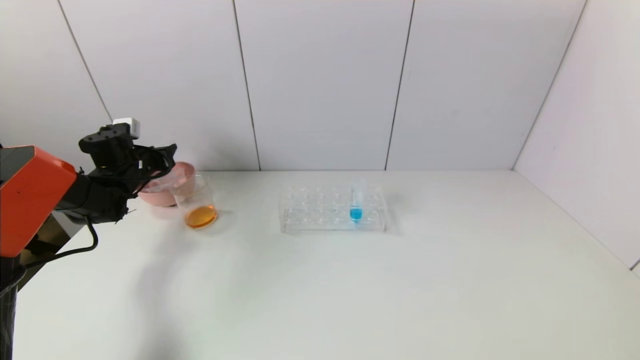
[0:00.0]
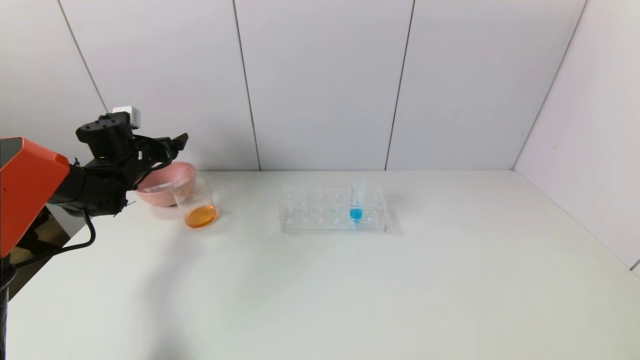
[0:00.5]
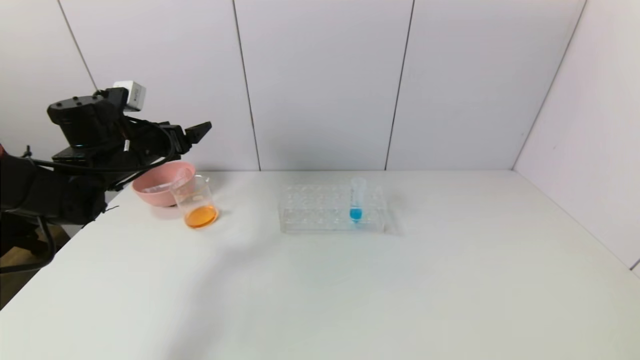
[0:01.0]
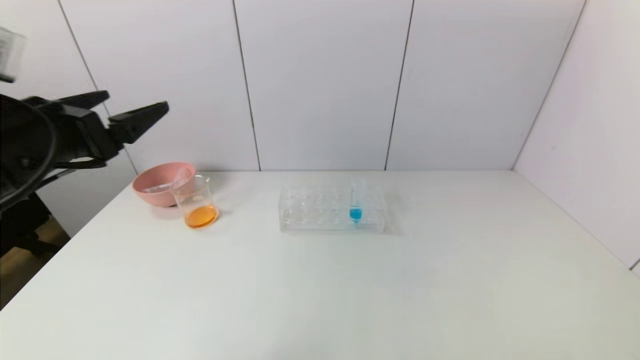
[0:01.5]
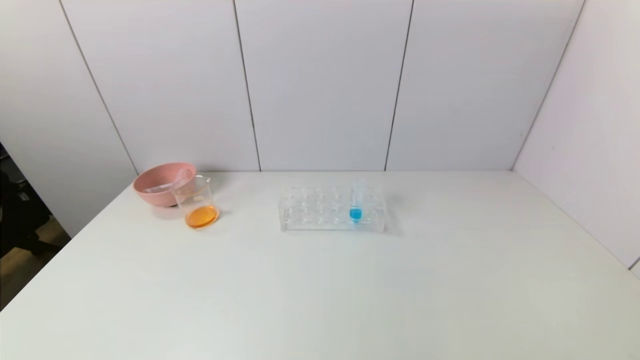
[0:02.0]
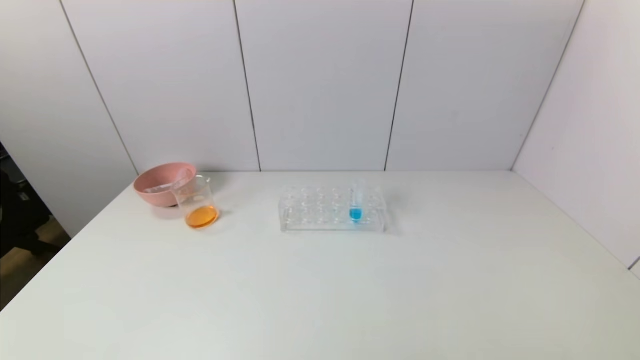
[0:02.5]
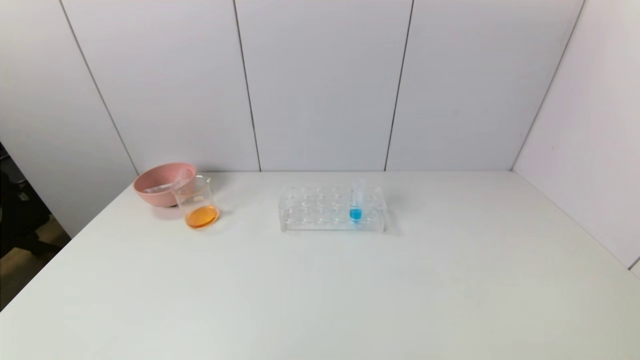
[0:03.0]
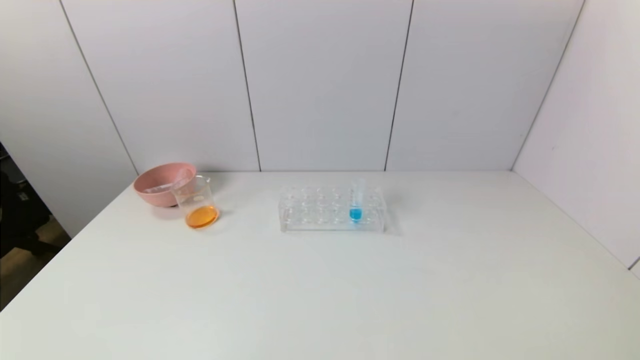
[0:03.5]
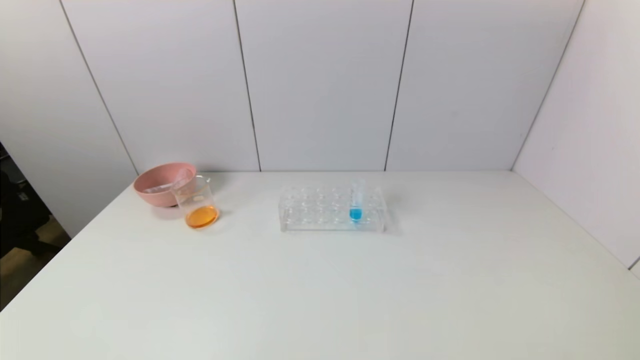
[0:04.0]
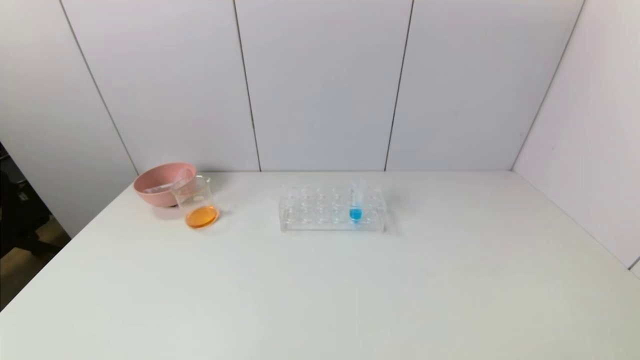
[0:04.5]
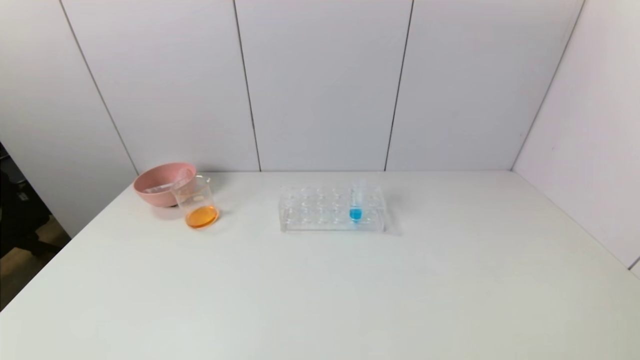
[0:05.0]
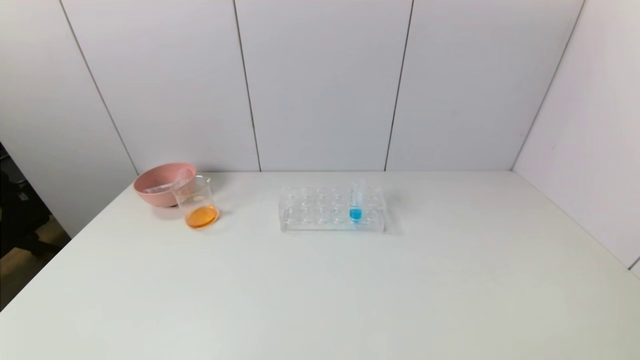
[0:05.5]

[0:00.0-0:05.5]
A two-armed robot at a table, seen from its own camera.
Task of the whole recording: pick up the test tube with yellow pigment and the test tube with red pigment by grippers and pour them into the beaker.
0:00.0 to 0:02.0: The left gripper moves backward, roughly 50 cm, and opens its fingers.
0:03.5 to 0:05.5: Neither gripper changes place.

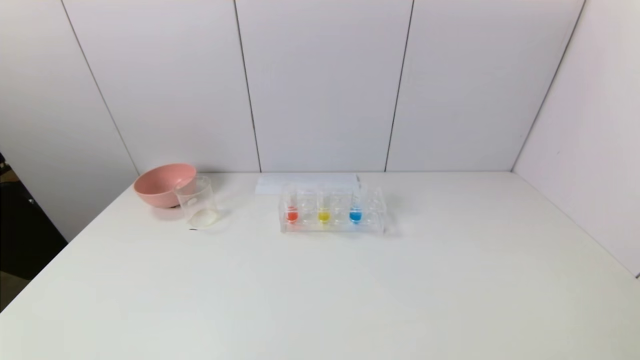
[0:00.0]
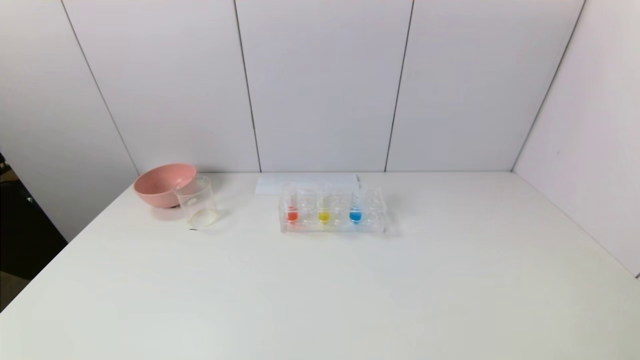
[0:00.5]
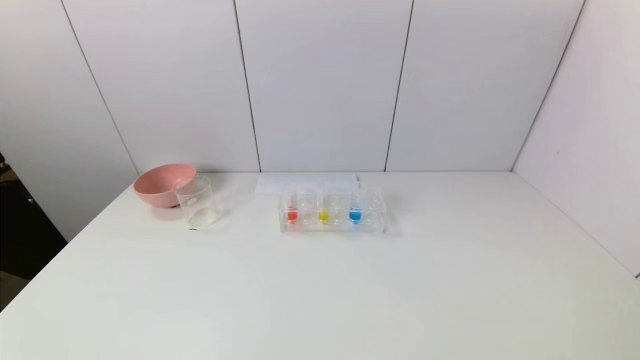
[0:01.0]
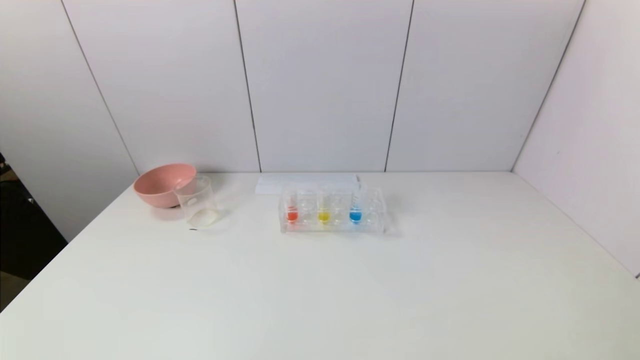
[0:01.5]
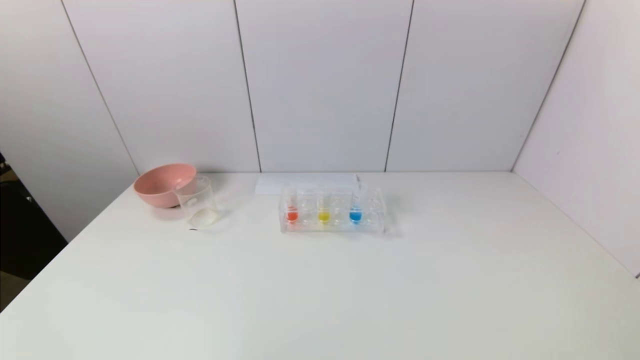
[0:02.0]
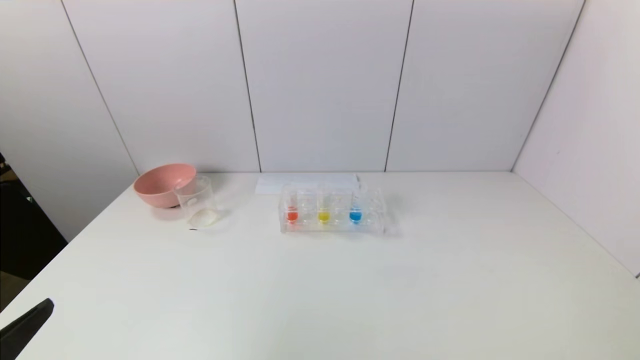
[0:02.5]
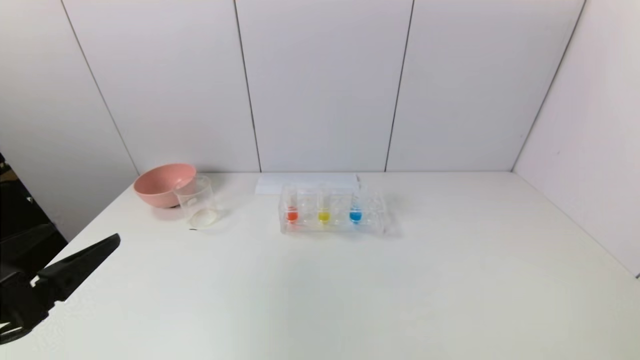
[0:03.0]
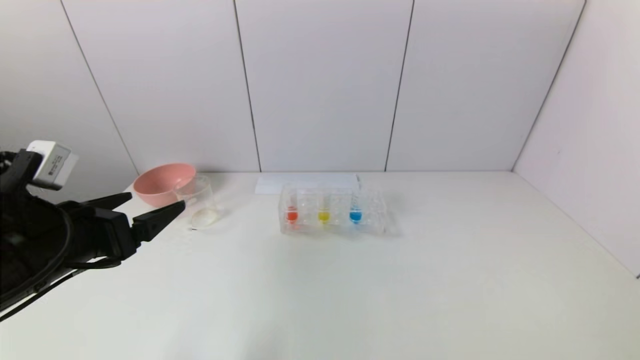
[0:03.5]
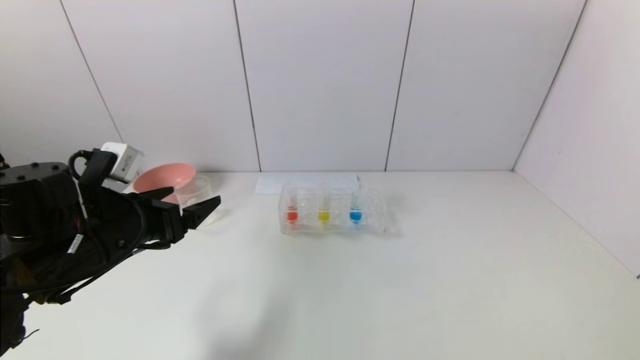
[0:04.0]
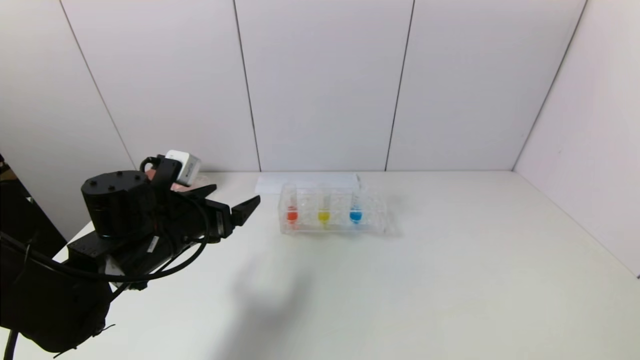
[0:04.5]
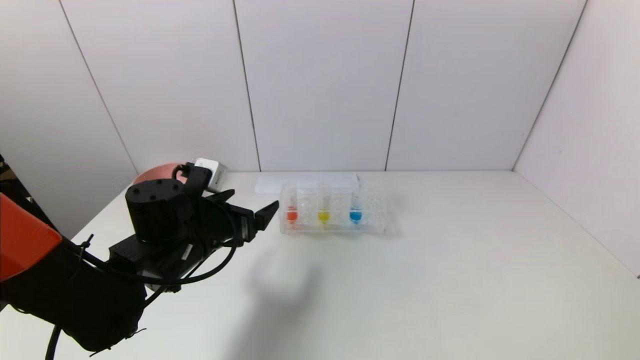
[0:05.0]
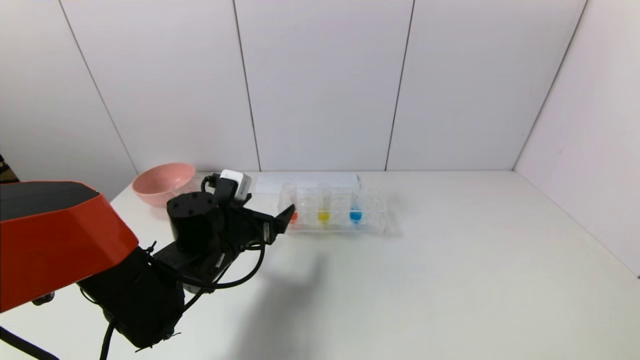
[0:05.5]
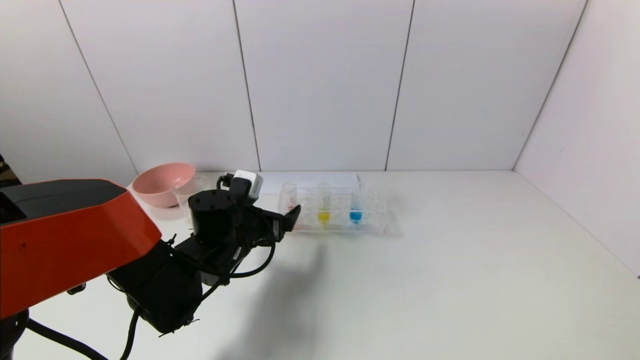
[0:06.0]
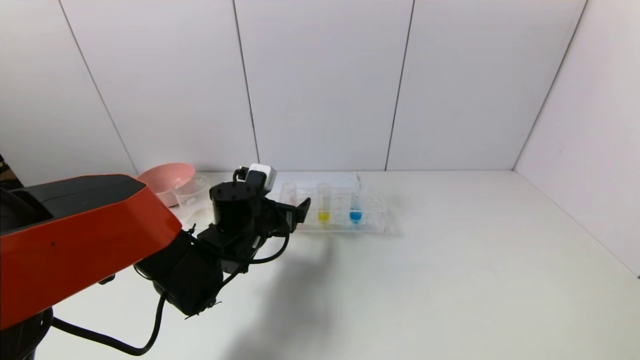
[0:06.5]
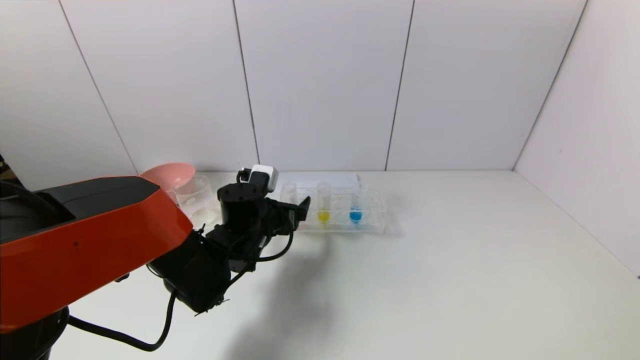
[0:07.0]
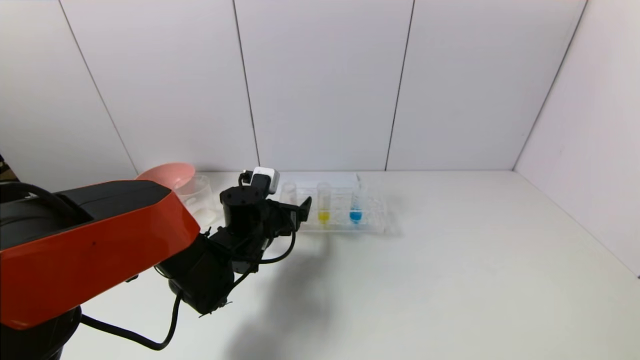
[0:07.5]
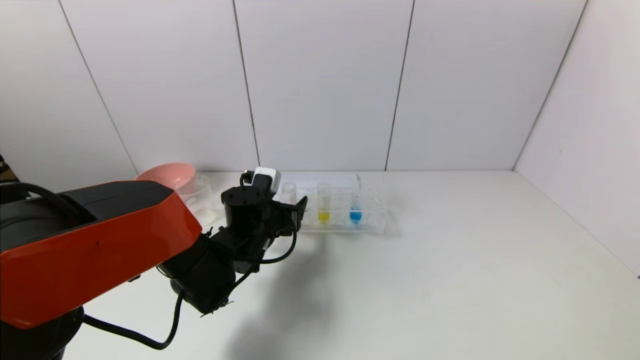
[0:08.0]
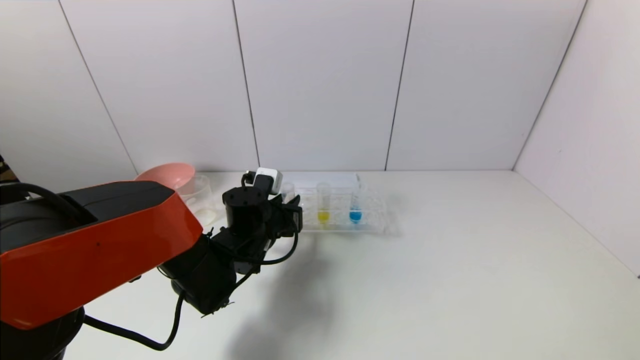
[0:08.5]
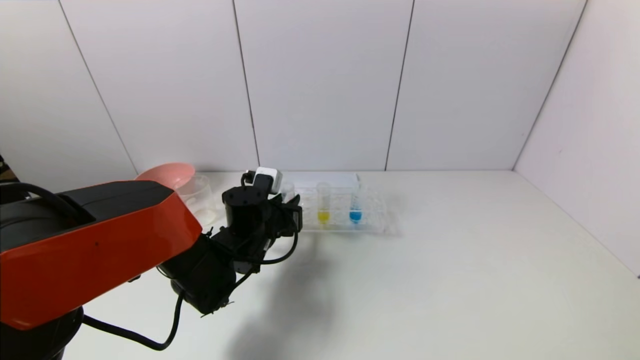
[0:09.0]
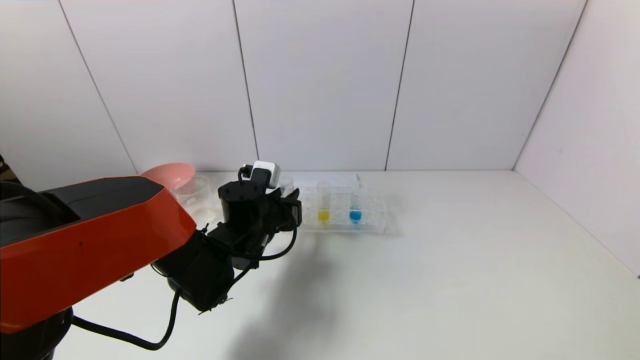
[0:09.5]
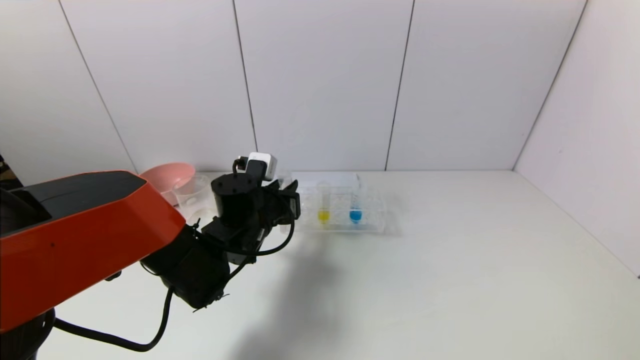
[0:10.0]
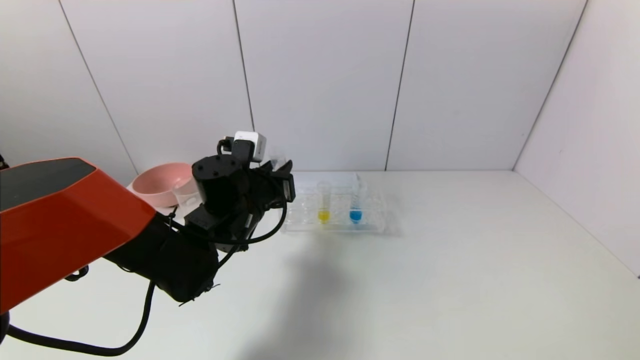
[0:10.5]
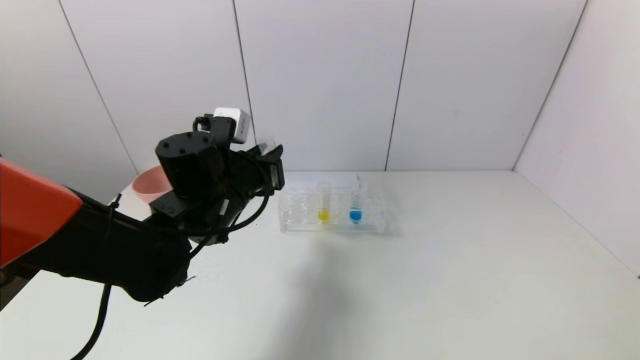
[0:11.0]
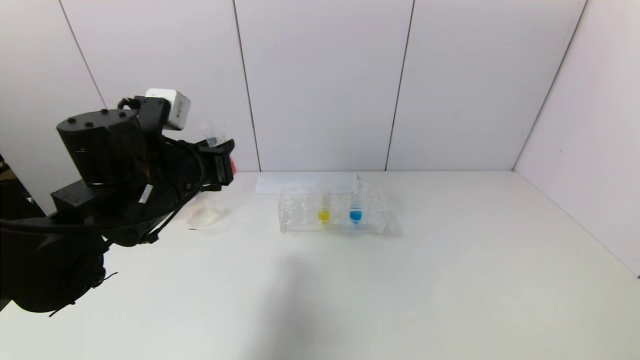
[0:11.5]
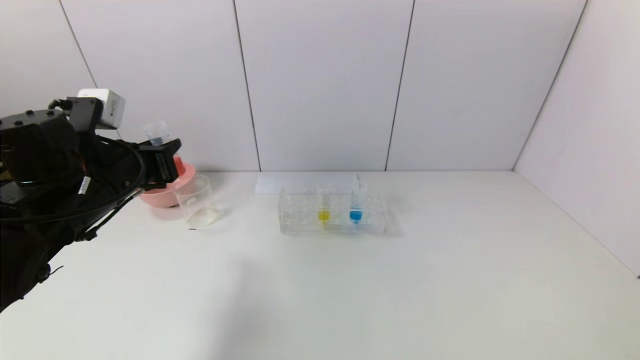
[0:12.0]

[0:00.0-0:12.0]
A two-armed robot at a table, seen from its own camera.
Task of the whole recording: pick up the test tube with yellow pigment and the test tube with red pigment by grippers and pour them into the beaker.
Step, 0:00.0 to 0:08.5: Grasp the red reagent with the left gripper.
0:02.0 to 0:04.0: The left gripper goes some 25 cm forward.
0:04.0 to 0:06.0: The left gripper moves to the right, downward and forward, some 15 cm.
0:06.0 to 0:08.0: The grippers make only small movements.
0:08.0 to 0:10.0: The left gripper closes.
0:10.0 to 0:12.0: The left gripper shifts some 20 cm to the left, upward and backward.

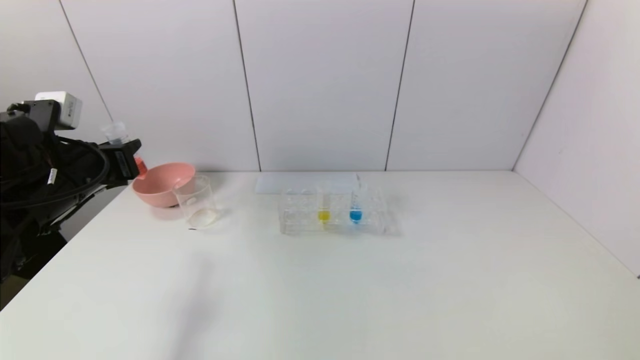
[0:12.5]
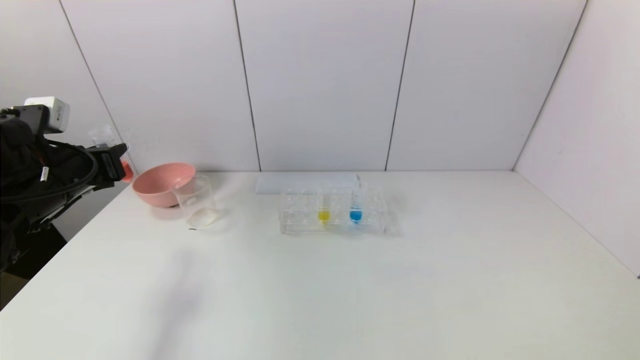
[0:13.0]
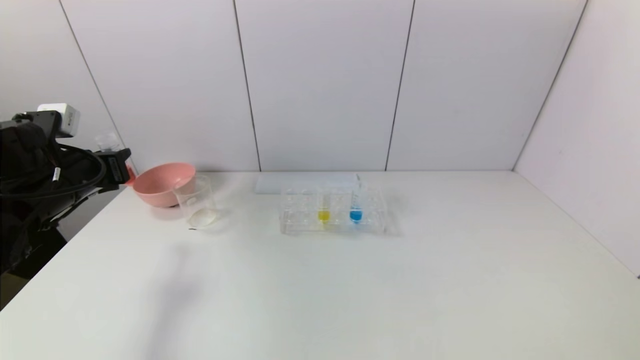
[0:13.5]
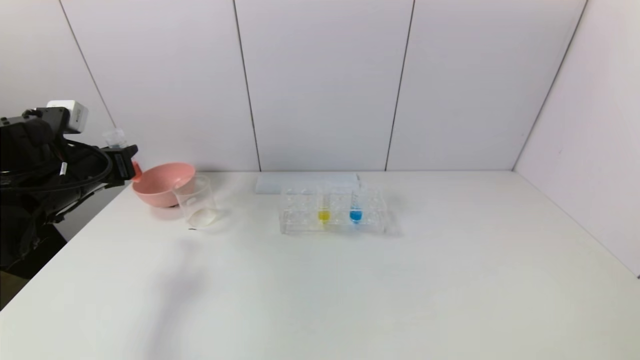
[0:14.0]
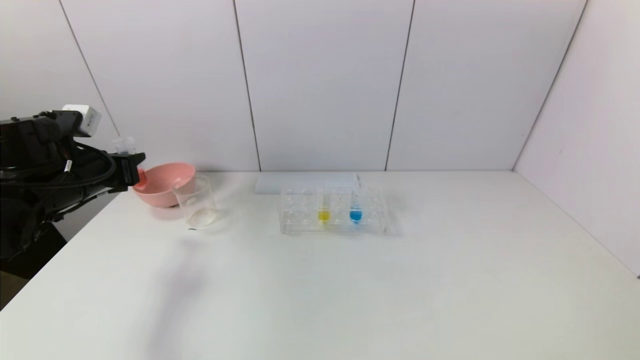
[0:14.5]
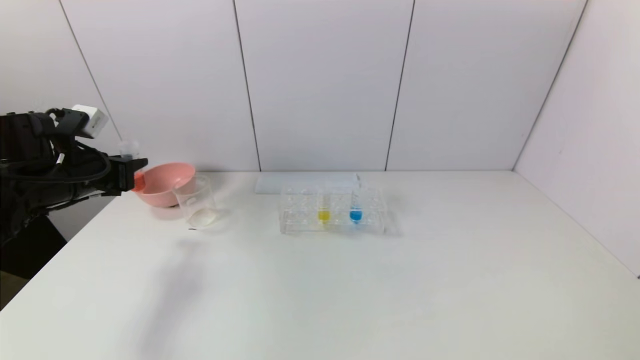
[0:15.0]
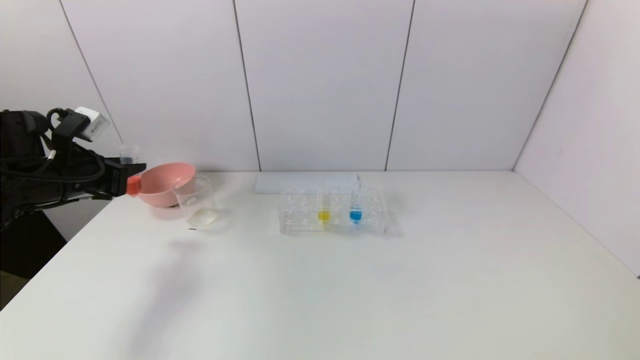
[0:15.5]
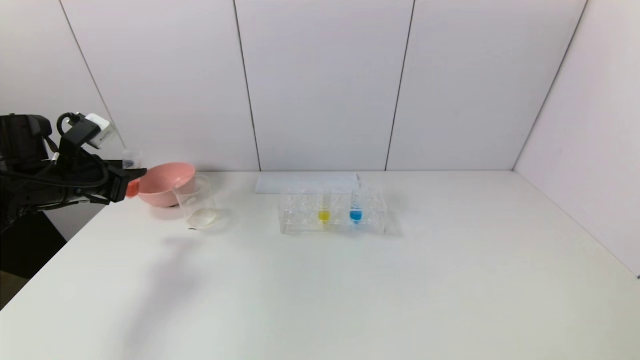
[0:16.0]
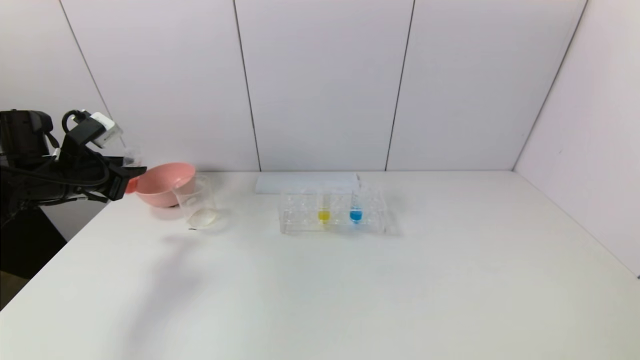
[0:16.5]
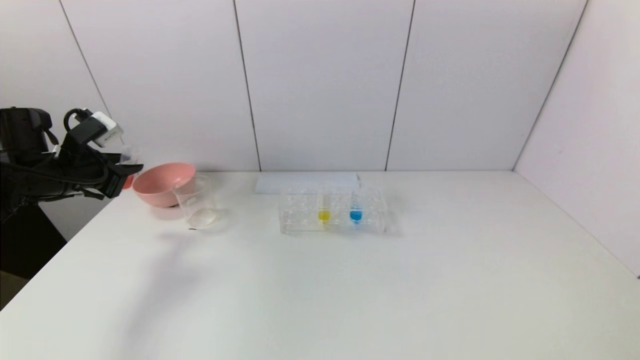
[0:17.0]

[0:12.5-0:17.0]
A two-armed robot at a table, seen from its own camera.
Task of the whole recording: pick up the test tube with yellow pigment and the test tube with red pigment by grippers and pour them into the beaker.
0:12.5 to 0:14.5: The left gripper shifts by about 5 cm.
